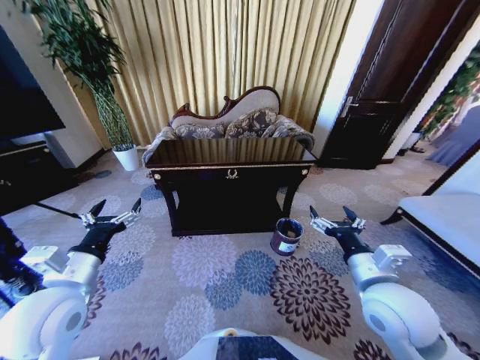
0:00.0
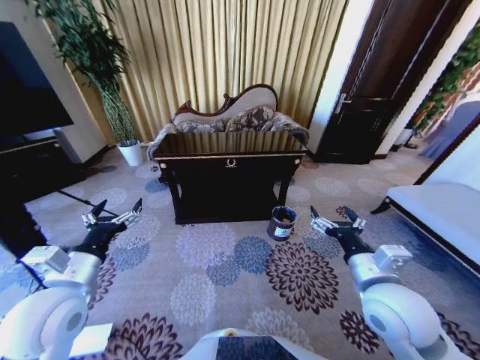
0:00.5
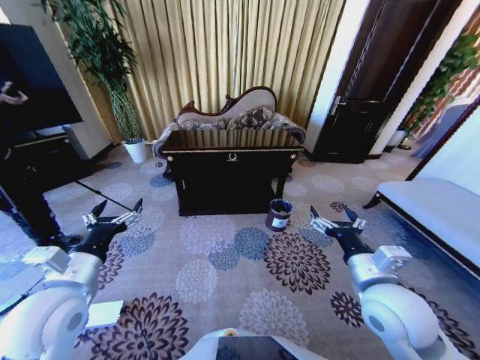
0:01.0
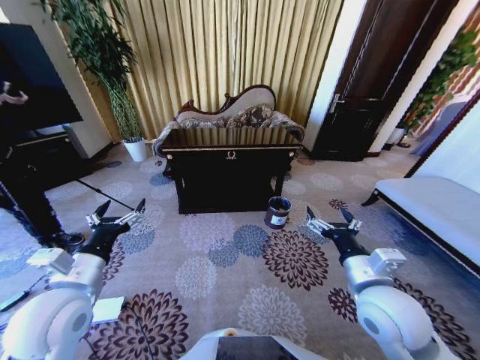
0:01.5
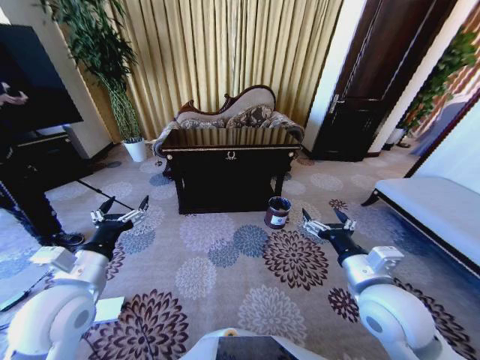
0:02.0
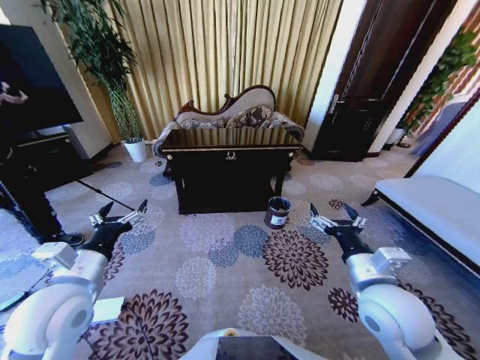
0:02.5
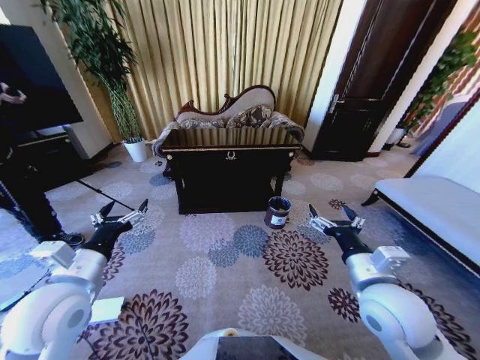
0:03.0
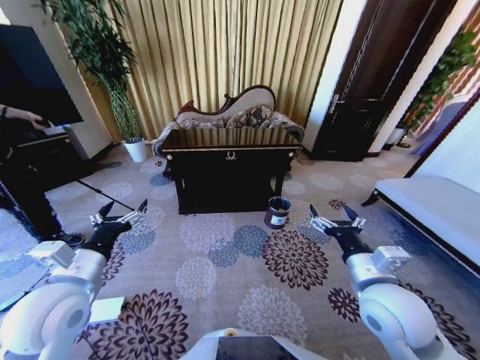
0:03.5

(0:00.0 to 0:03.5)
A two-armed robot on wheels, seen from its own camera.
Task of the whole recording: Move to the front of the table and place the trash on the table into the trash bin.
0:02.0 - 0:03.5: The grippers stay close to where they were, moving slightly.
